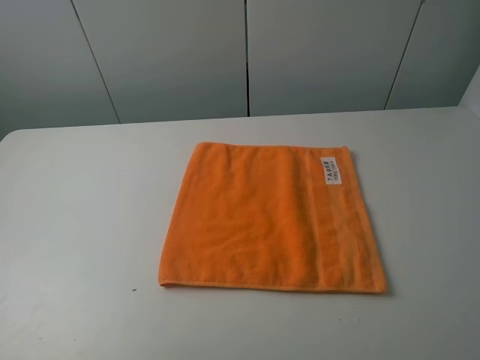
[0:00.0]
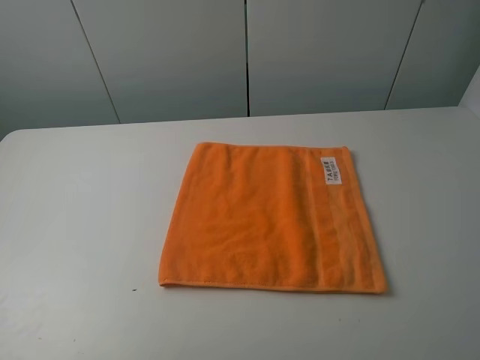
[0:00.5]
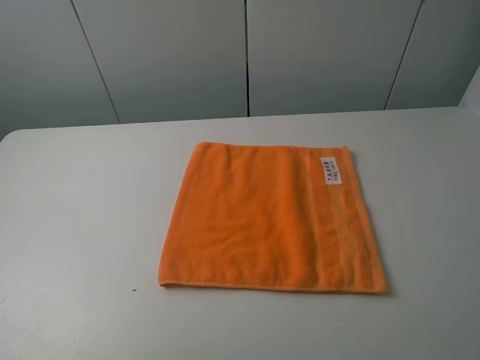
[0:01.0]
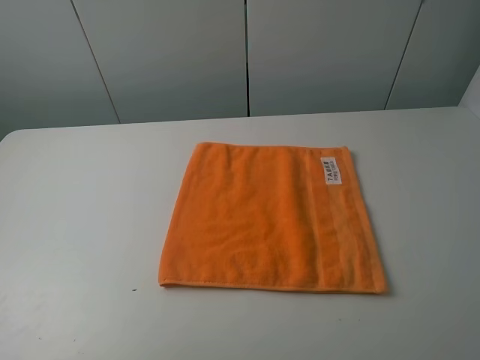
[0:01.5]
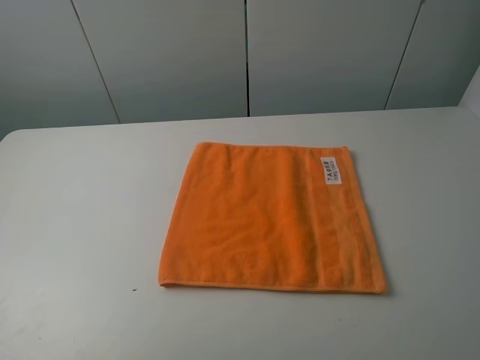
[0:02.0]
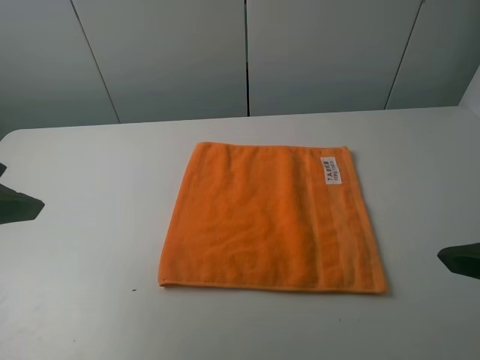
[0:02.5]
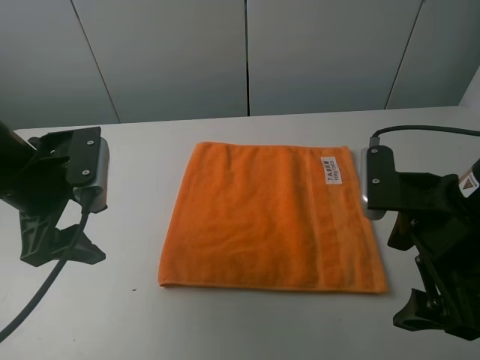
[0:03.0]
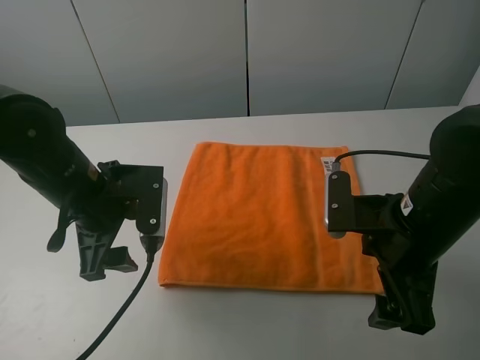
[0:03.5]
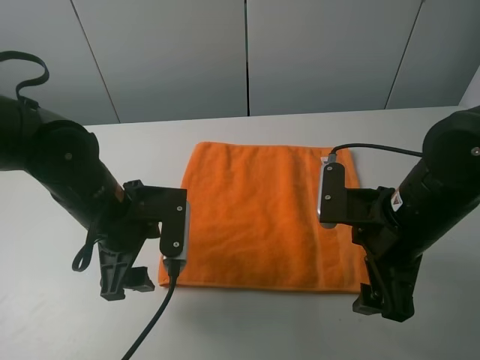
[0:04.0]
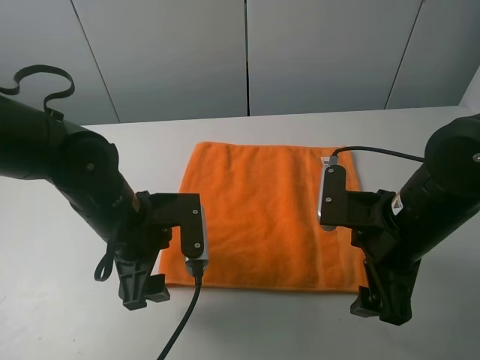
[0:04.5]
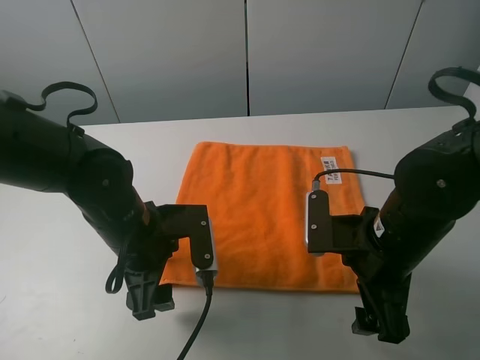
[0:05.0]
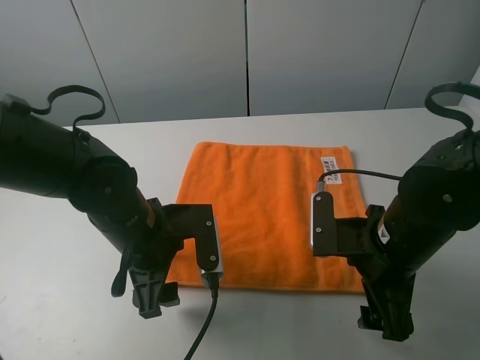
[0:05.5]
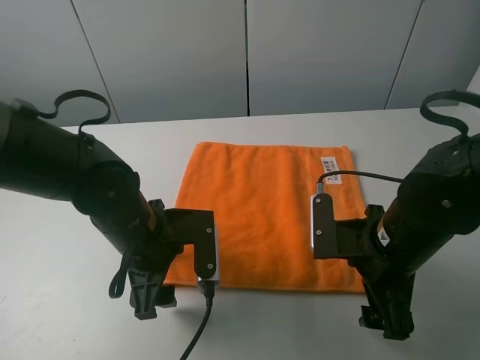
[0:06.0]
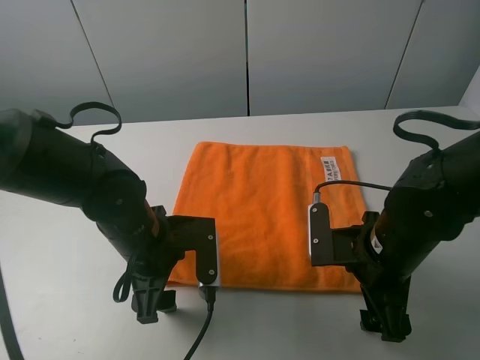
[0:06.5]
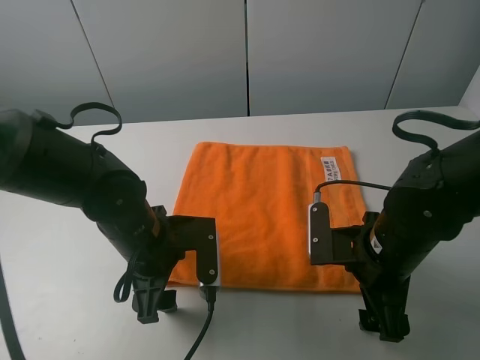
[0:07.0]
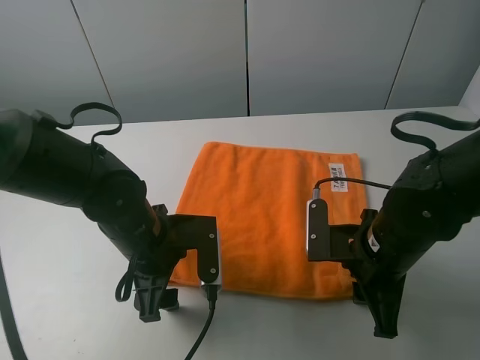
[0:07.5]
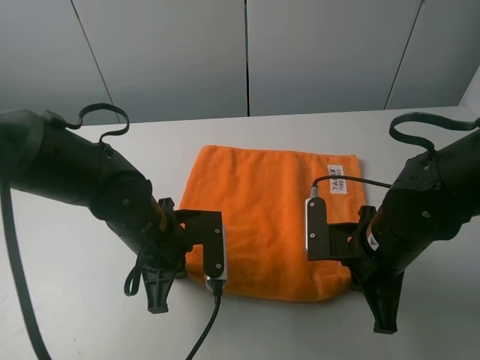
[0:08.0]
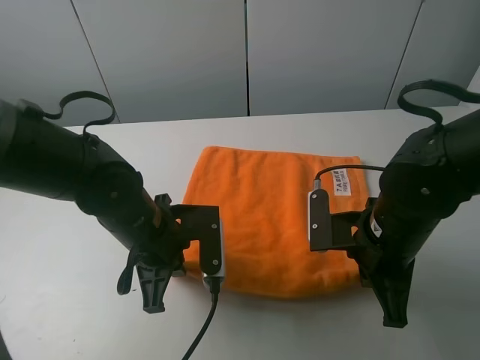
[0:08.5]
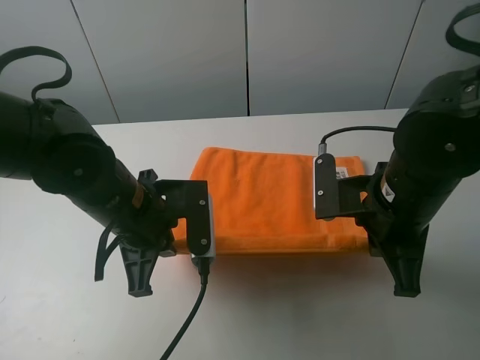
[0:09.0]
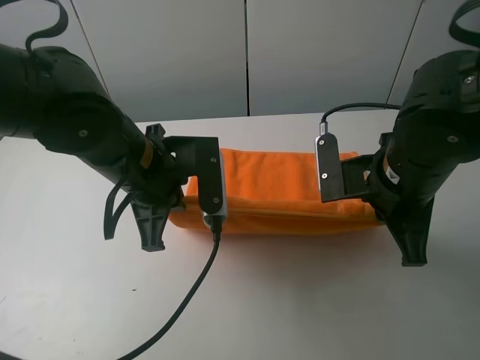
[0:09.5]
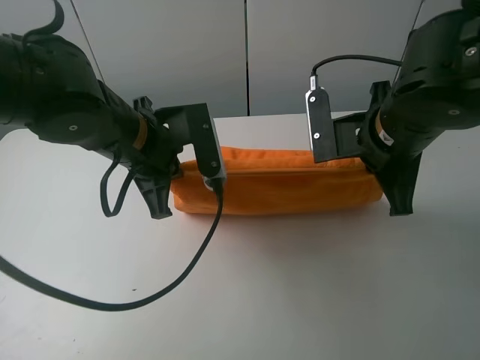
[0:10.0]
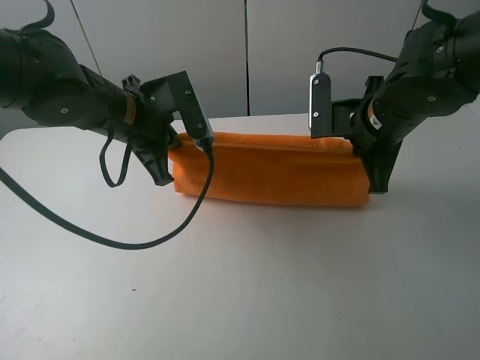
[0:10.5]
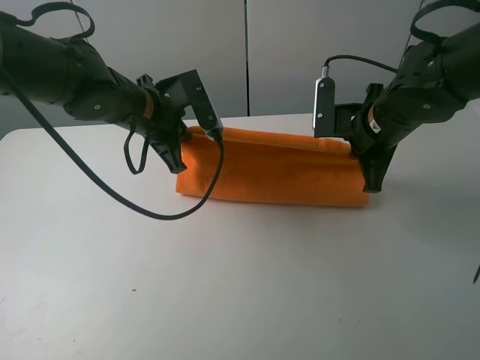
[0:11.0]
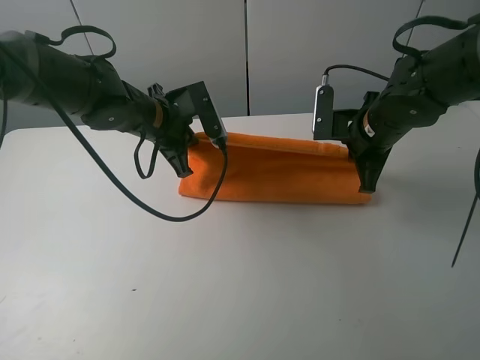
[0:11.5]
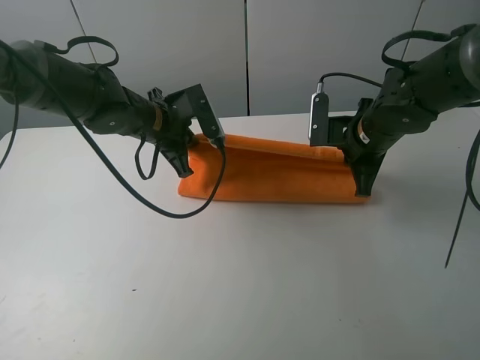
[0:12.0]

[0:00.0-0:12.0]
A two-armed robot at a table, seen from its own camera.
Task of the whole recording: fold the towels on the table.
Step, 0:00.0 to 0:07.5: Grasp the orange towel with the right gripper.
0:02.0 to 0:04.0: The right gripper goes roughly 25 cm forward, downward and to the left, while the left gripper goes some 30 cm forward, to the right and downward.
0:04.0 to 0:06.0: The grippers move only a little.
0:06.0 to 0:08.0: The right gripper closes up; the left gripper closes its fingers.
0:08.0 to 0:10.0: Both grippers travel together upward and forward, some 15 cm.
0:10.0 to 0:12.0: Both grippers move forward and downward, some 10 cm.

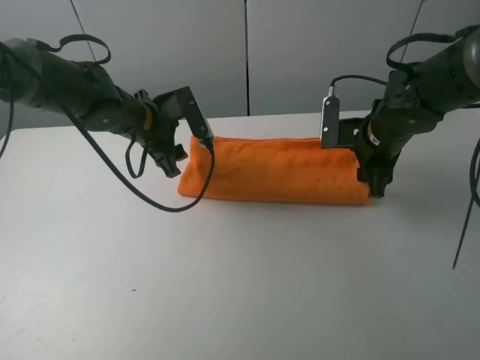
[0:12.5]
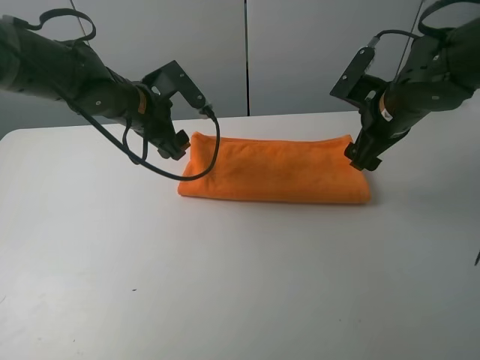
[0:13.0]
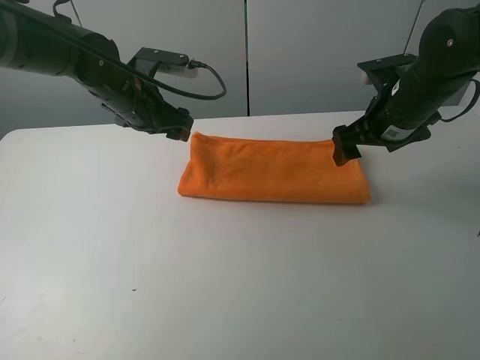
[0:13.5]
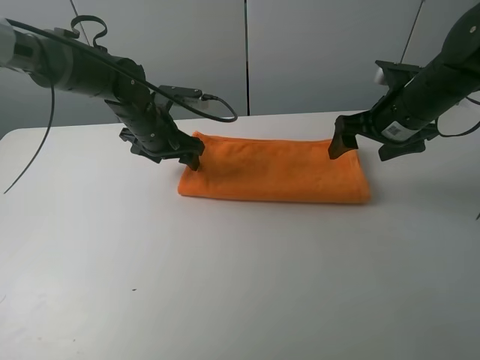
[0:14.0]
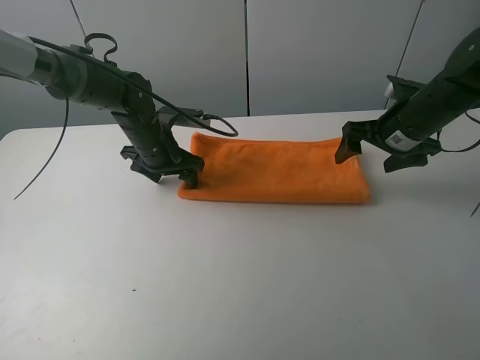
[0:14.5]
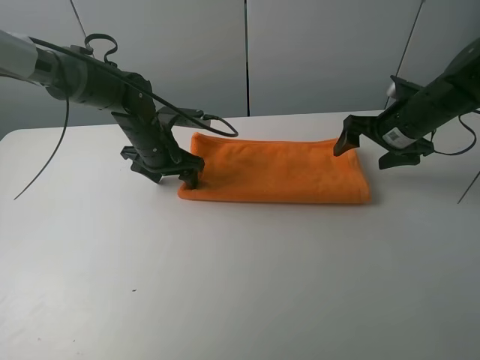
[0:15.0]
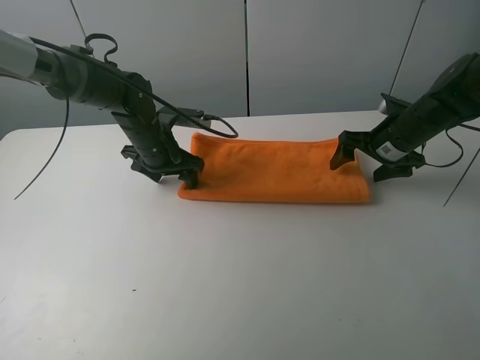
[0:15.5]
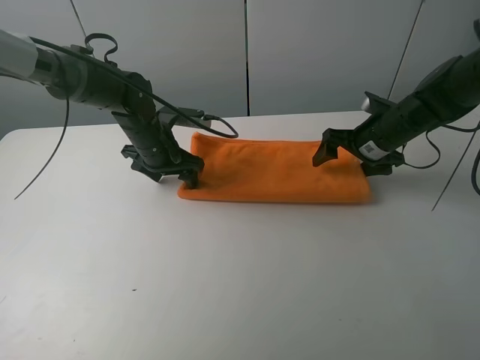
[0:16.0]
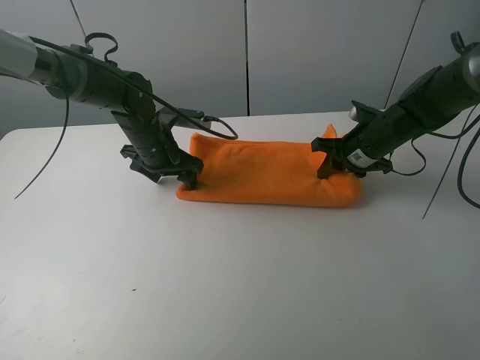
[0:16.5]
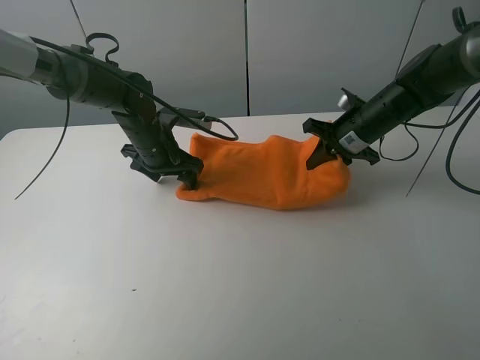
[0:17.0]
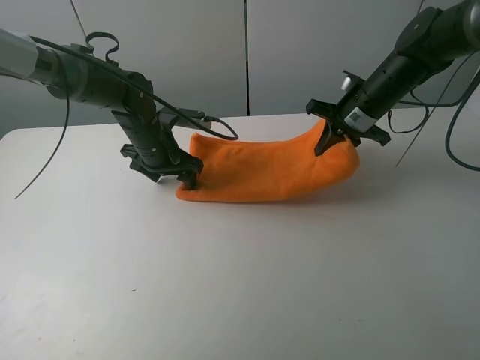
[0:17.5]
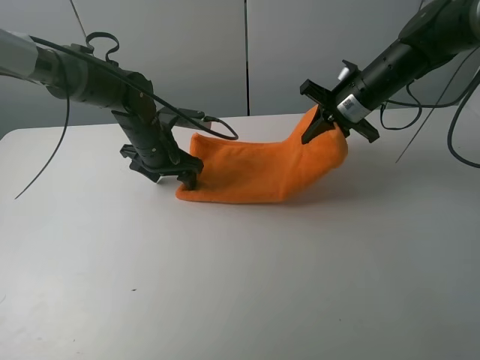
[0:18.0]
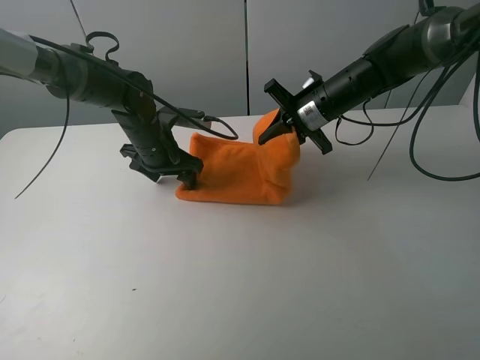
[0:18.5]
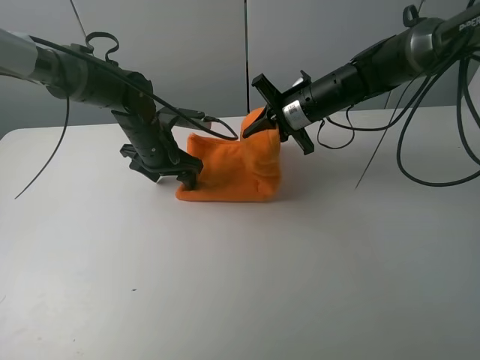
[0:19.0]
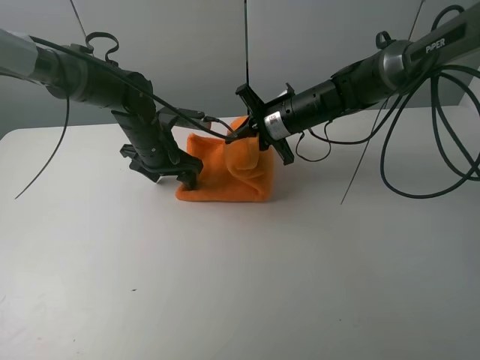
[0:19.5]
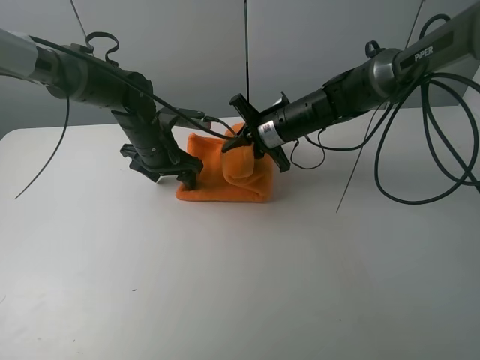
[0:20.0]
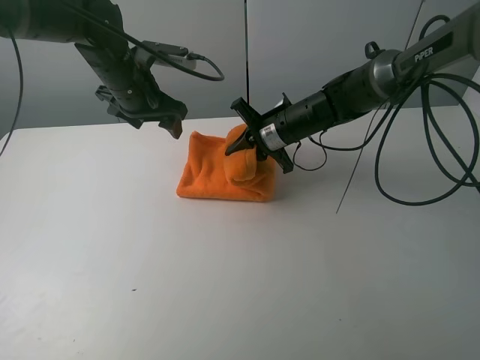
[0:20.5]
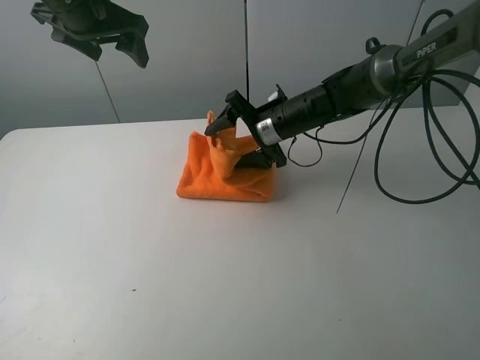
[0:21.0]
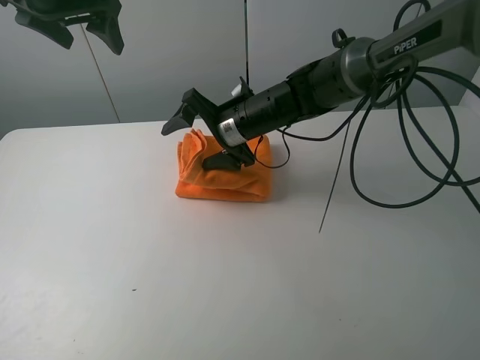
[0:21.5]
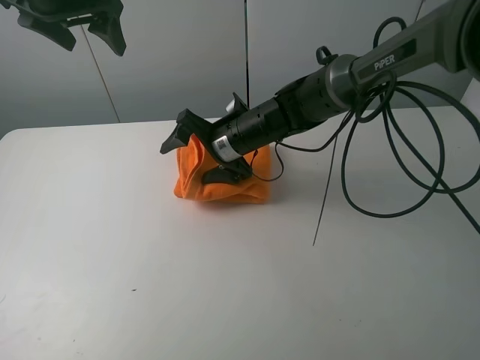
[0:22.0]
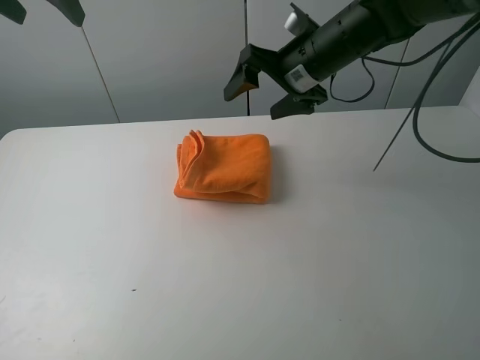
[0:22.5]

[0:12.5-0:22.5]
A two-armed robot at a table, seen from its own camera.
Task of the whole recording: fold the towels on the table.
Step, 0:13.0 to 0:14.5: Press on the orange towel with the left gripper.
Step, 0:15.0 to 0:21.0: Fold the orange towel from right to left with right gripper.
Step, 0:21.5 to 0:22.0: Arrange the orange towel with the right hand.
0:12.5 to 0:14.5: The right gripper changes place by roughly 5 cm.
0:14.5 to 0:16.5: The right gripper travels downward by about 5 cm, and closes its fingers.
0:16.5 to 0:18.5: The right gripper goes about 10 cm to the left and upward.
0:18.5 to 0:20.5: The left gripper heads upward, covering about 10 cm. Meanwhile the right gripper heads to the left, covering approximately 5 cm.
0:20.5 to 0:22.5: The left gripper travels upward and to the left by some 20 cm. Meanwhile the right gripper shifts some 15 cm upward, and opens.

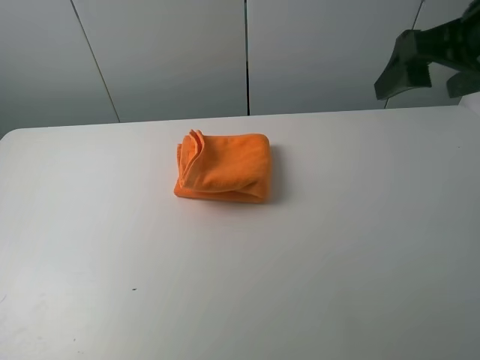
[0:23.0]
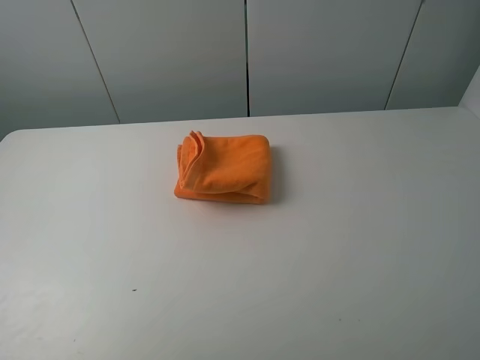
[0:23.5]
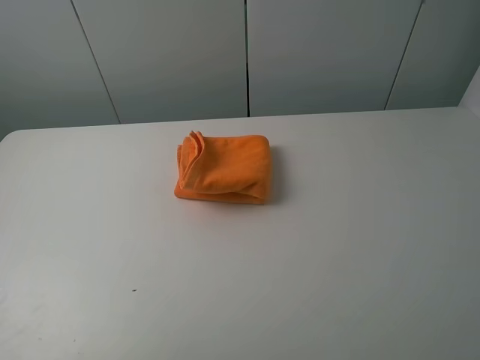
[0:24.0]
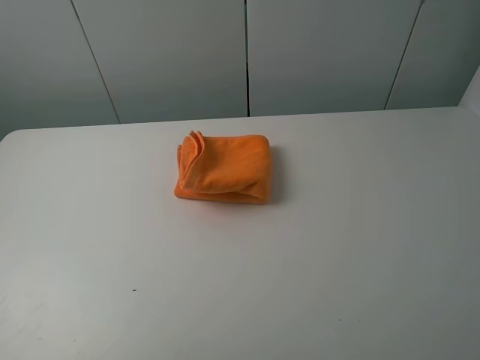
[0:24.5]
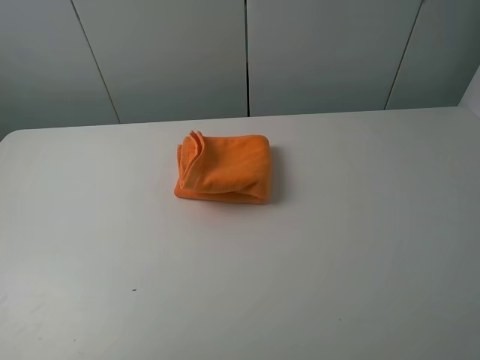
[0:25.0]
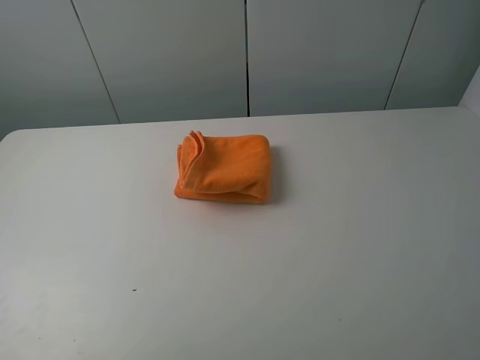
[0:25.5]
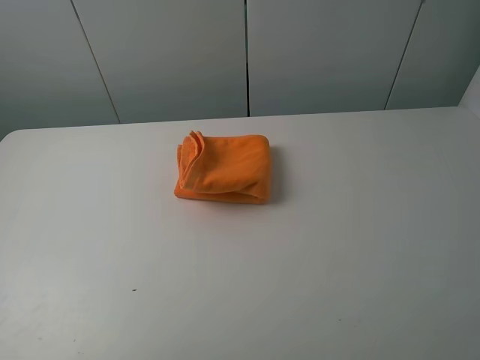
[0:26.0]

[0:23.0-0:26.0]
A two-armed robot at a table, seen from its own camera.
Task of the whole recording: fold the towels on the table.
0:23.0 to 0:24.5: The right gripper shifts approximately 20 cm backward; the left gripper moves backward and downward, roughly 20 cm.
